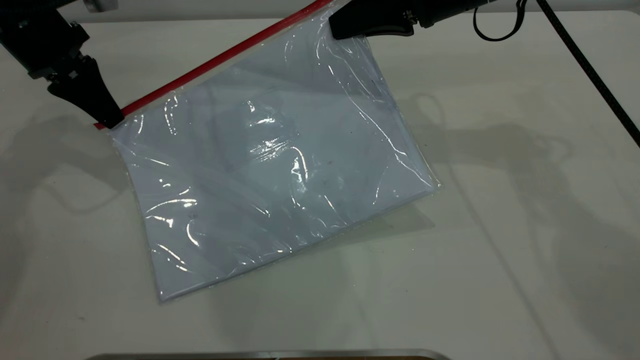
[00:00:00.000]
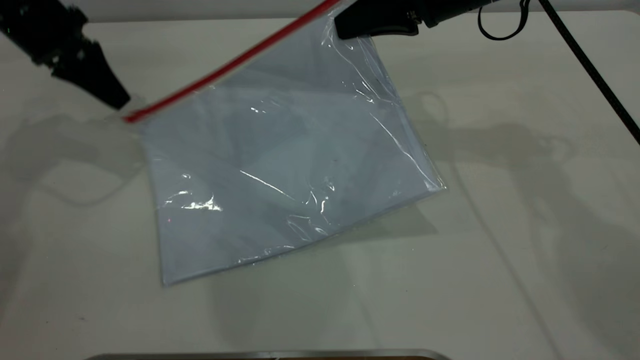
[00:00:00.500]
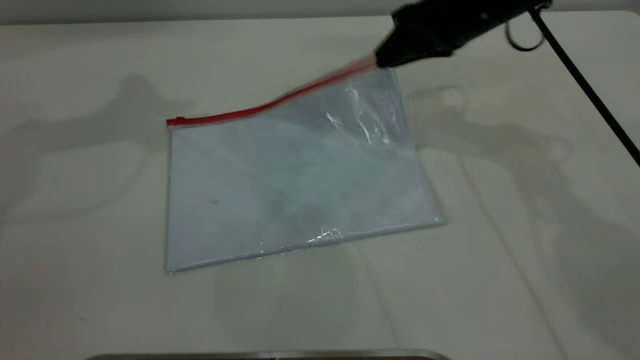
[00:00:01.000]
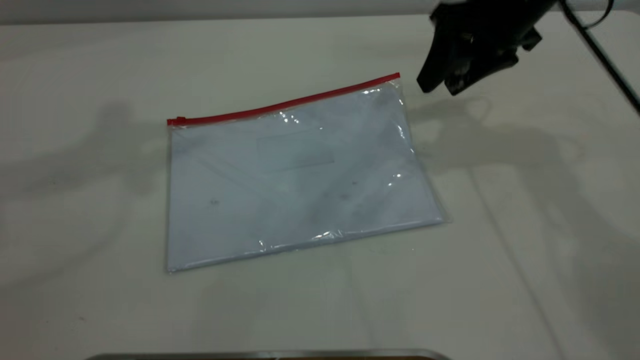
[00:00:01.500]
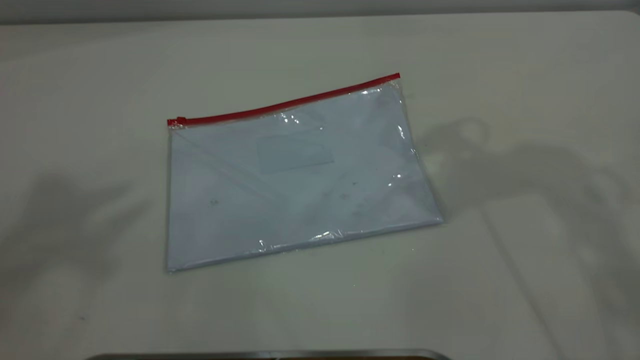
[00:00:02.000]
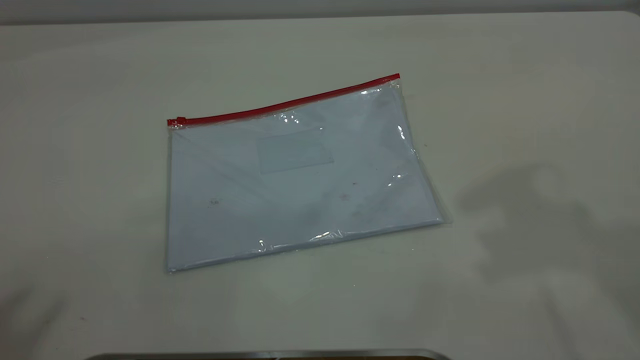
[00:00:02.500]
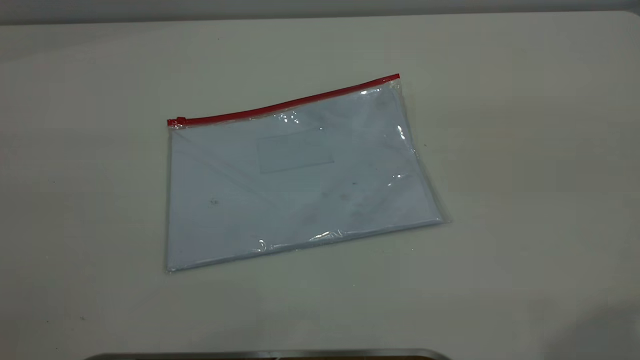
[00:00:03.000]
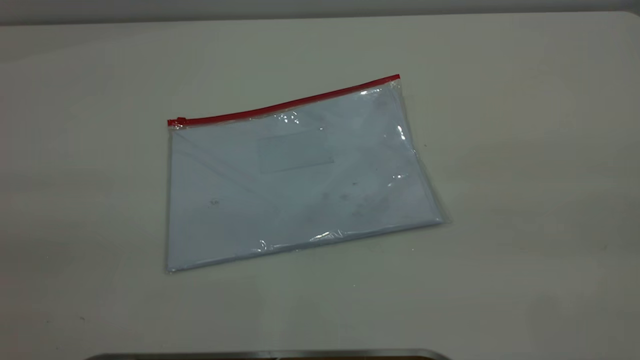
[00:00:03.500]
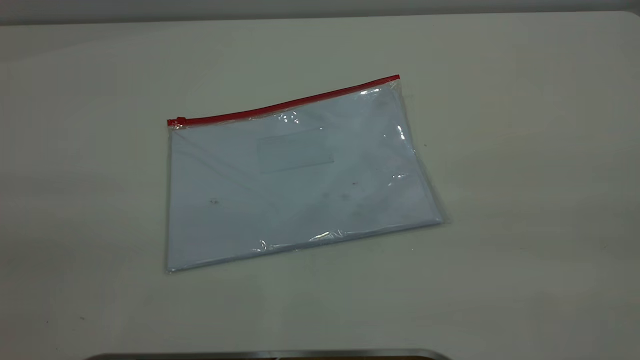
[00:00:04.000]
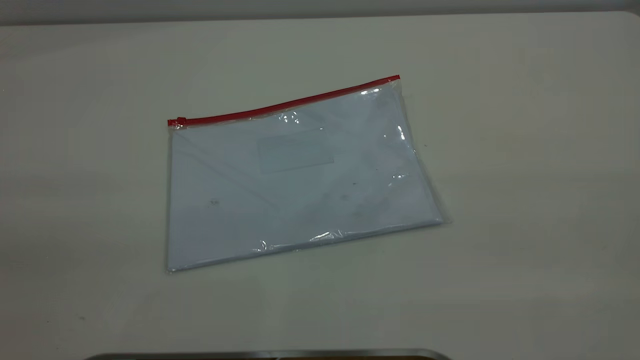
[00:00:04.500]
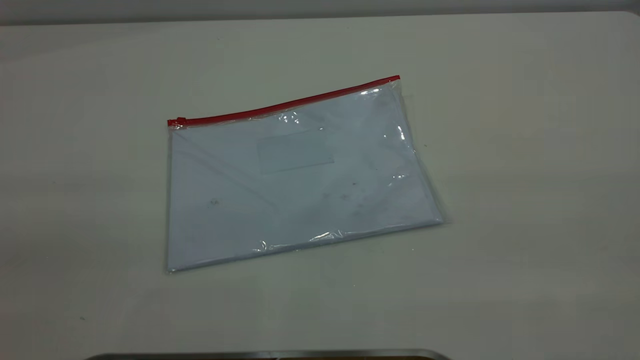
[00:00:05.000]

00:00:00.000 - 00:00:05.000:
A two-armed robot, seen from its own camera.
Step, 00:00:01.000 - 00:00:01.500: Place the transparent plastic bag.
00:00:00.000 - 00:00:02.500: The right gripper heads upward and backward, covering approximately 30 cm, and opens up, while the left gripper heads upward and backward, covering roughly 50 cm, and opens up.

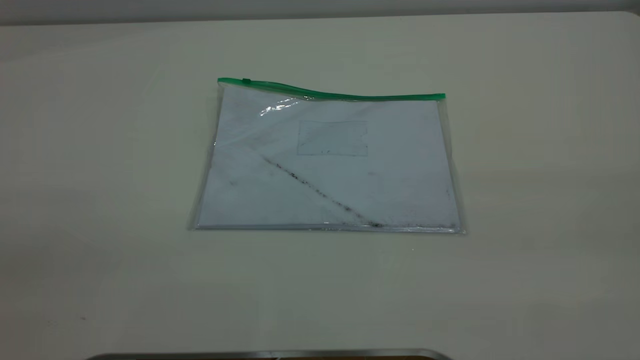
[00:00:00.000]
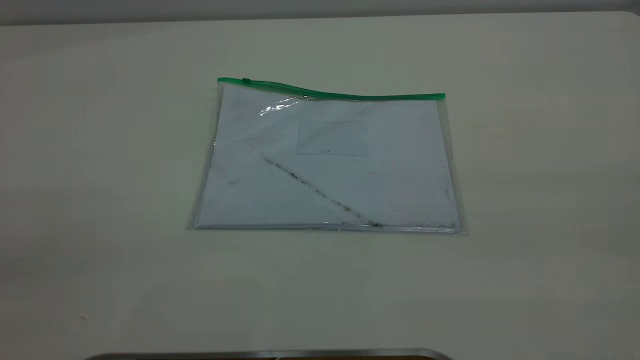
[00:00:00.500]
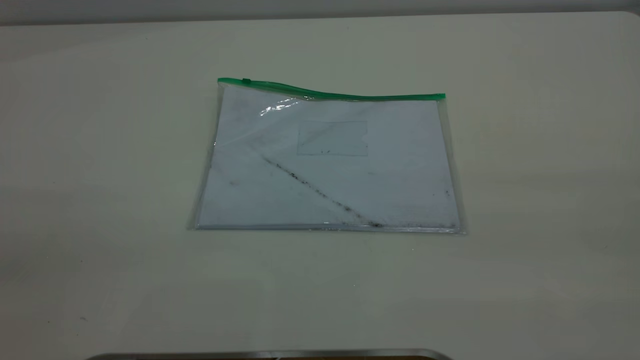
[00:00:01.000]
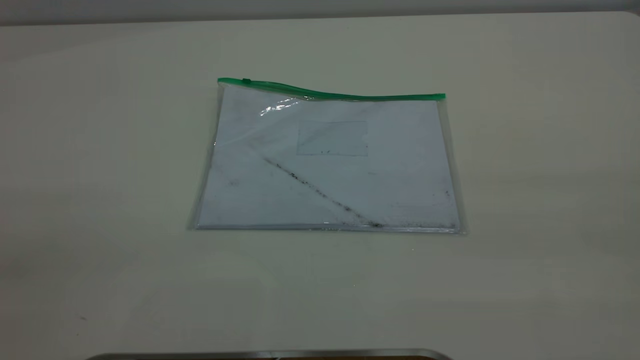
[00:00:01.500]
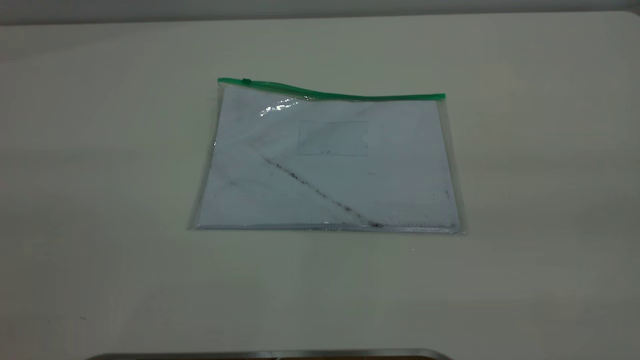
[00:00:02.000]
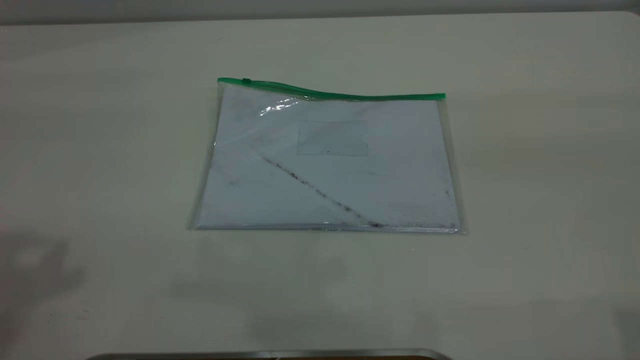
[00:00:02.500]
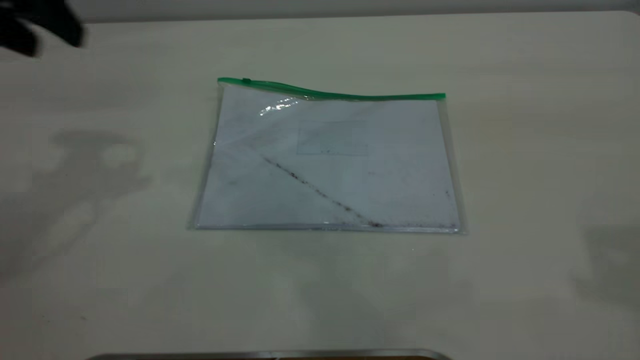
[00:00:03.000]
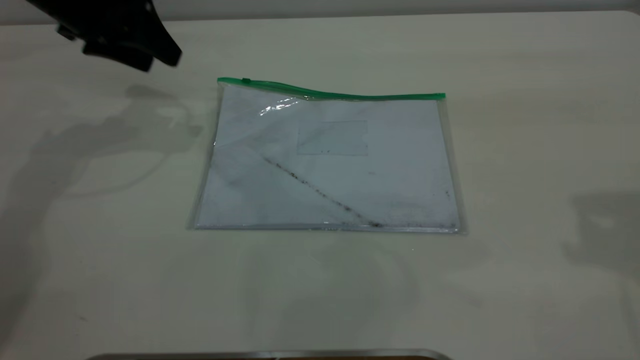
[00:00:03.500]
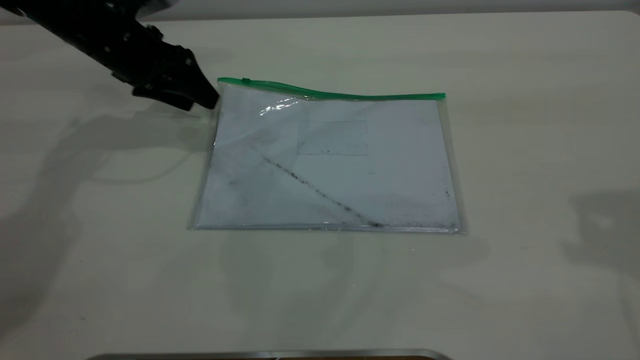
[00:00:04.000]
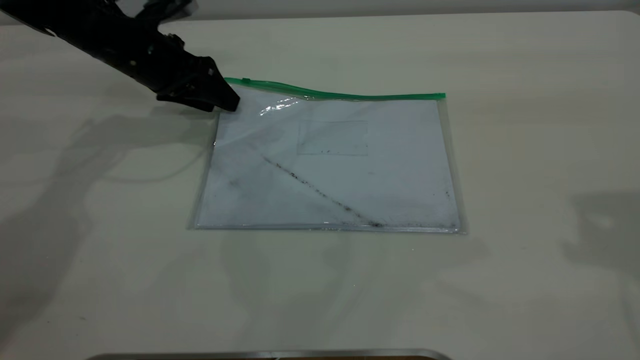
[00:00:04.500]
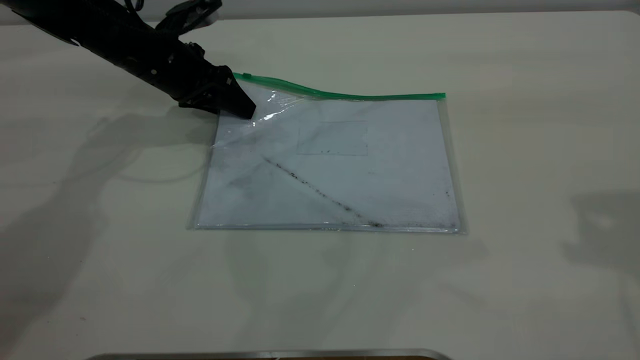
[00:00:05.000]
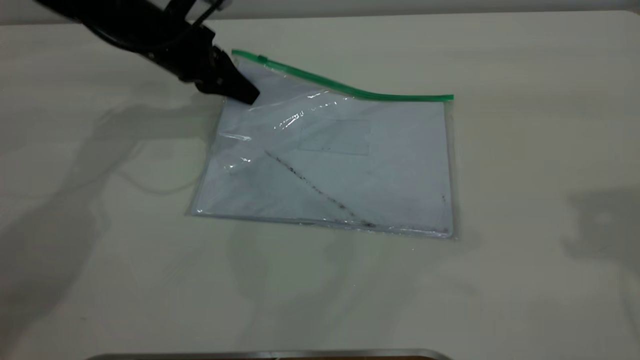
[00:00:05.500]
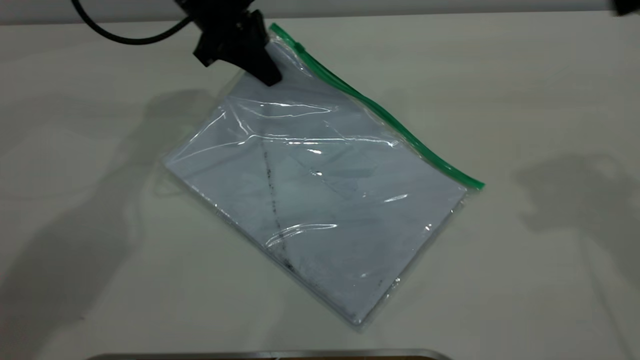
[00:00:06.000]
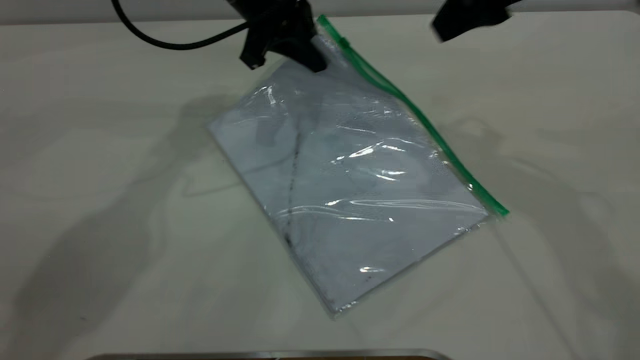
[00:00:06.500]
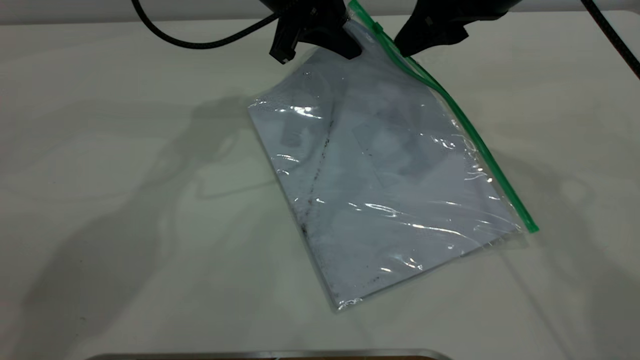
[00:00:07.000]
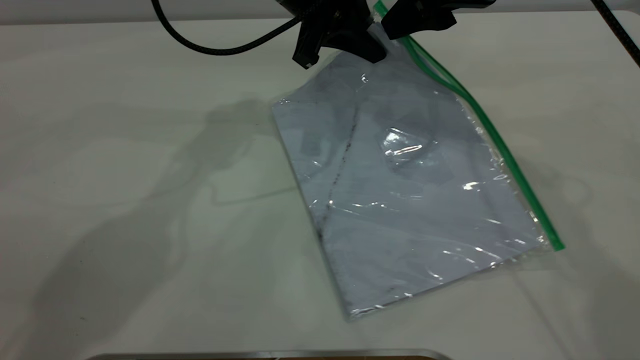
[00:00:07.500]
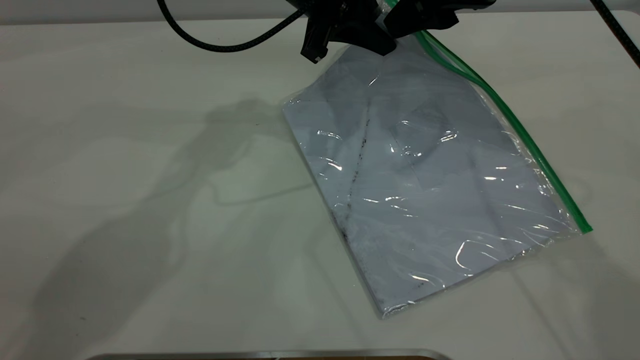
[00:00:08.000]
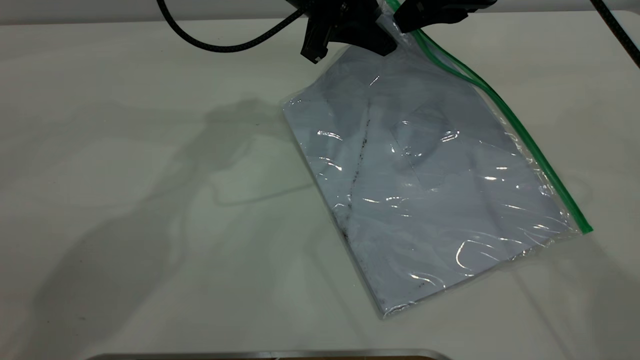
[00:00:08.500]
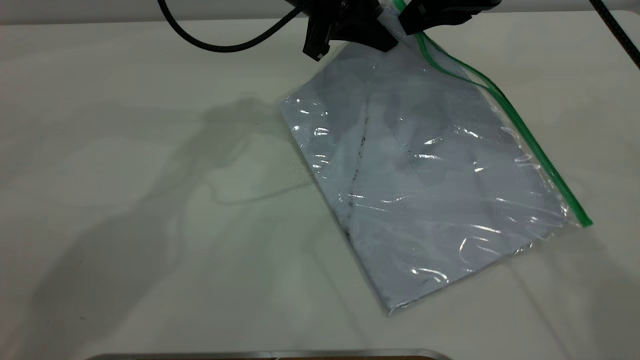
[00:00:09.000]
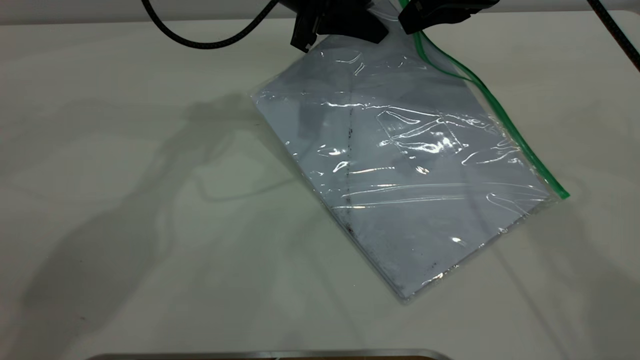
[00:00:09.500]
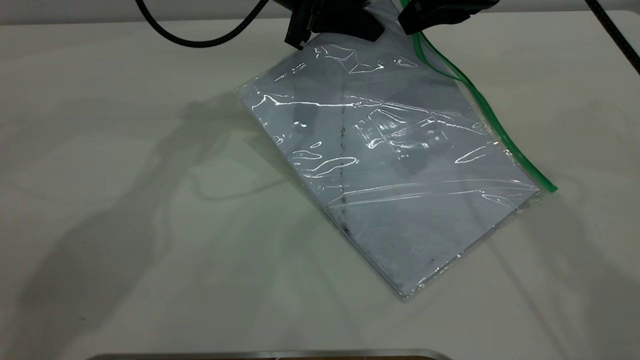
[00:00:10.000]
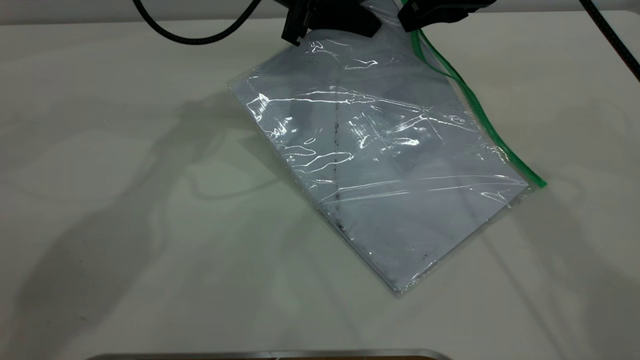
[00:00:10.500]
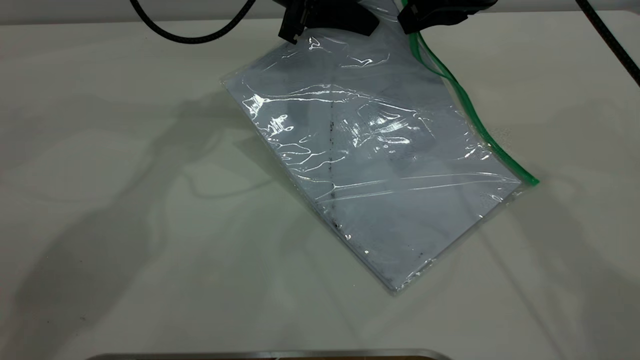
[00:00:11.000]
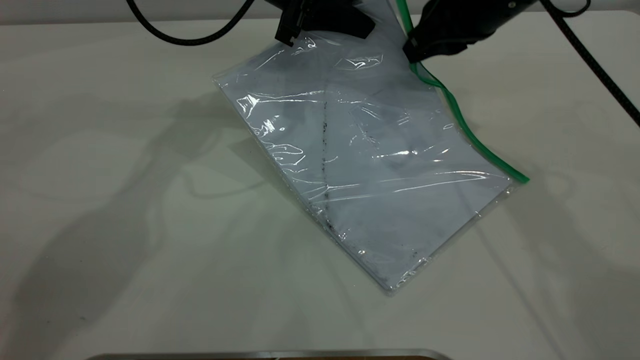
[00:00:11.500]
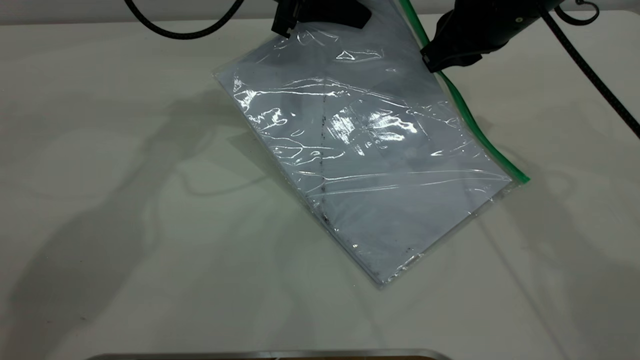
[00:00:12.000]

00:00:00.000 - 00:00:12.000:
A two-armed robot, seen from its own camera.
Step, 00:00:00.000 - 00:00:05.500: Pick up the transparent plastic bag with the left gripper.
00:00:02.000 - 00:00:04.000: The left gripper shifts approximately 50 cm forward and downward.
00:00:04.000 - 00:00:06.000: The right gripper shifts about 5 cm forward; the left gripper moves to the right and upward, approximately 15 cm, and closes up.
00:00:06.000 - 00:00:08.000: The right gripper is displaced to the left, forward and downward by about 15 cm. Meanwhile the left gripper travels to the right by some 10 cm.
00:00:08.000 - 00:00:10.000: The right gripper closes up.
00:00:10.000 - 00:00:12.000: The grippers make only small movements.

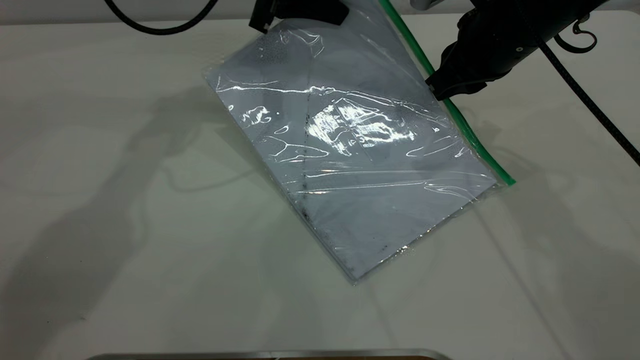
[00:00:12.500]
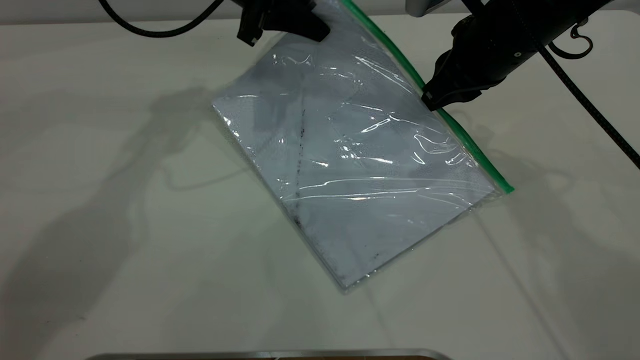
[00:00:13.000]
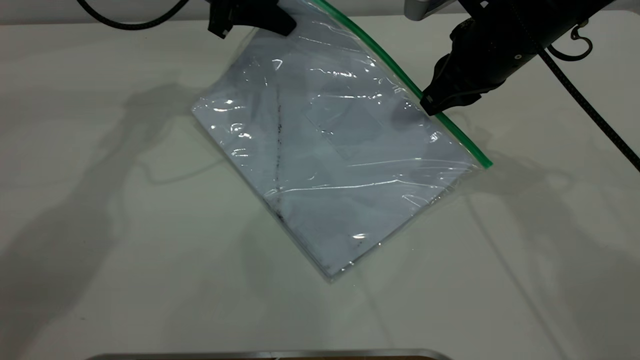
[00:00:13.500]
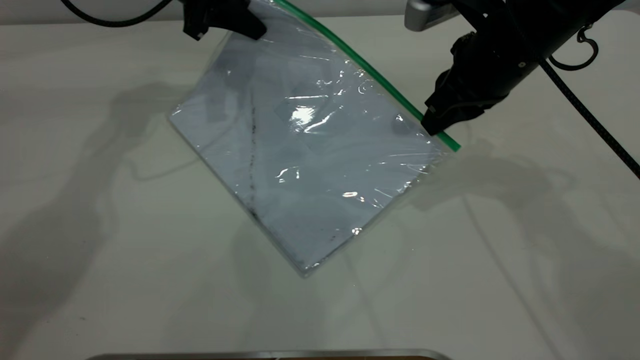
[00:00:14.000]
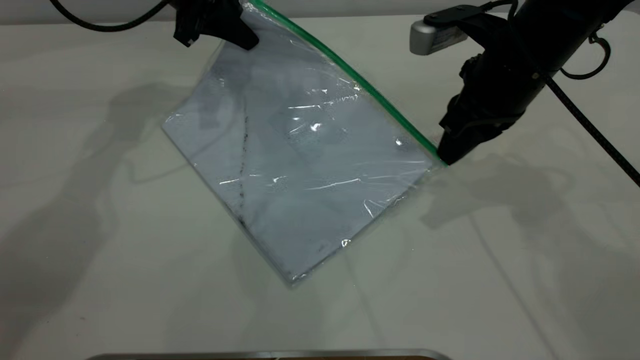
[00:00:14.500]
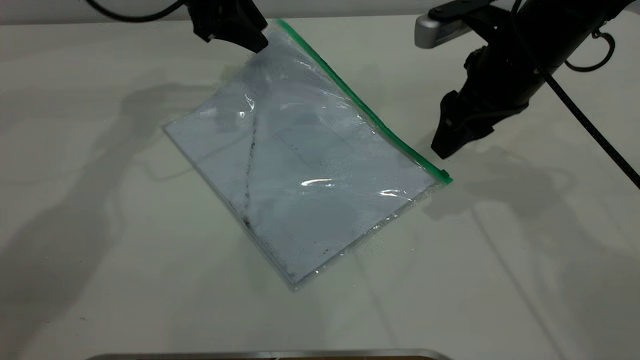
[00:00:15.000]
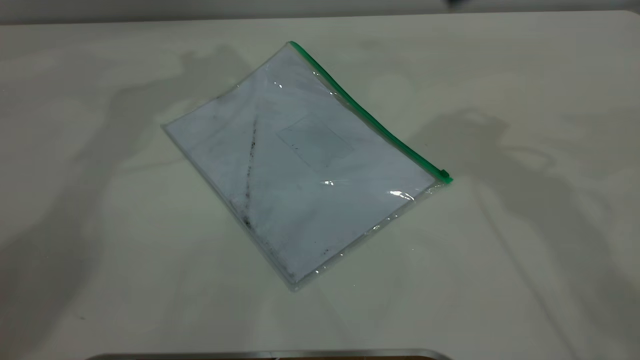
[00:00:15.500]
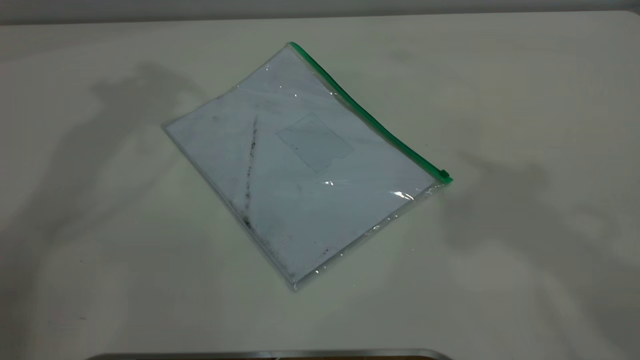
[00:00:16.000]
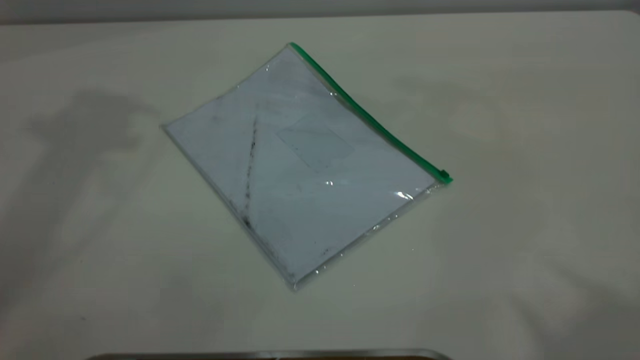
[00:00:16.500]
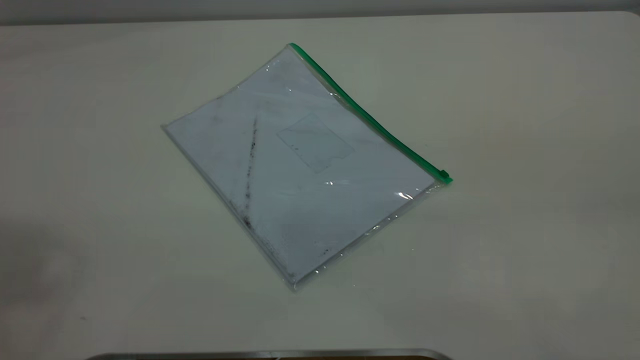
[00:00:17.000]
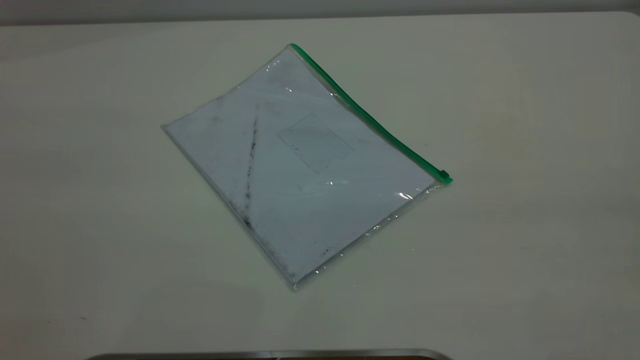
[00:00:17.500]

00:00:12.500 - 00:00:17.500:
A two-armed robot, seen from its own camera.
Step, 00:00:12.500 - 00:00:14.500: Pulling up the zipper on the transparent plastic bag with the right gripper to close it.
00:00:12.500 - 00:00:15.000: The right gripper opens its fingers. The left gripper goes approximately 5 cm to the left, and opens up.
00:00:15.000 - 00:00:17.500: The grippers both shift backward and upward by some 50 cm.
